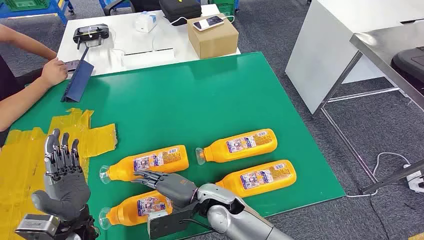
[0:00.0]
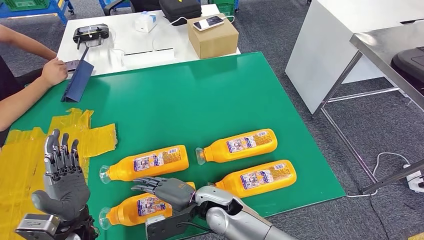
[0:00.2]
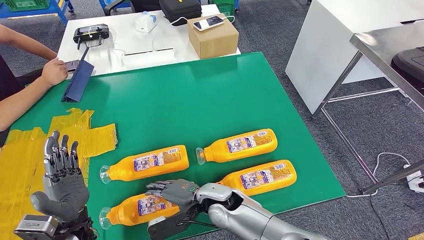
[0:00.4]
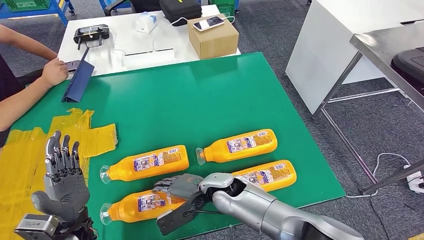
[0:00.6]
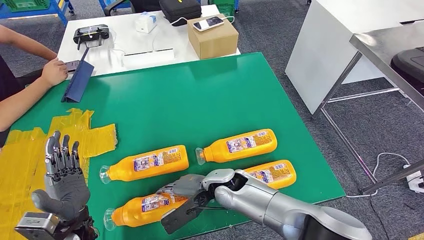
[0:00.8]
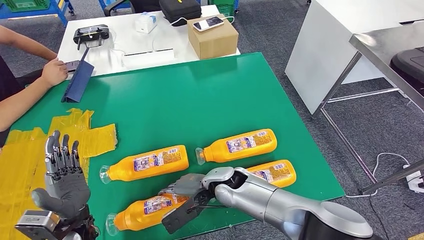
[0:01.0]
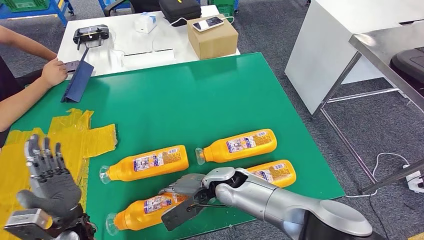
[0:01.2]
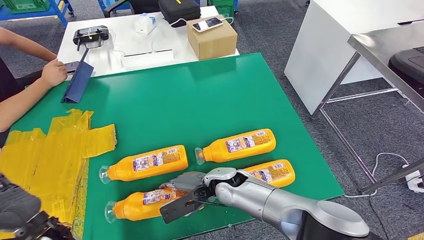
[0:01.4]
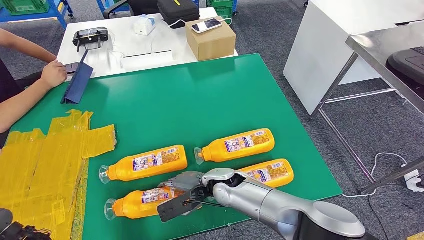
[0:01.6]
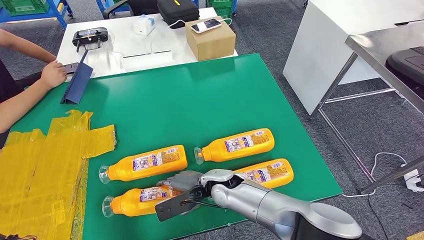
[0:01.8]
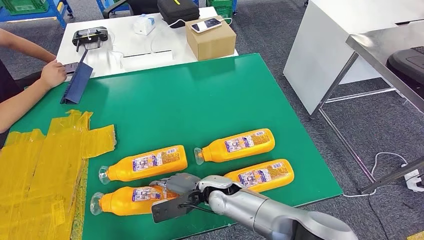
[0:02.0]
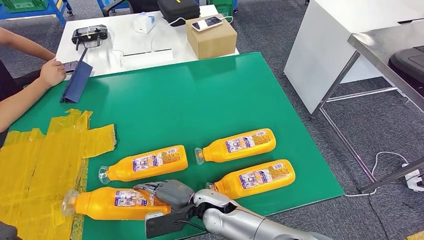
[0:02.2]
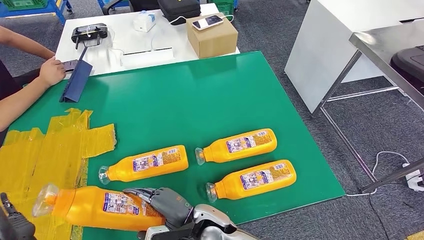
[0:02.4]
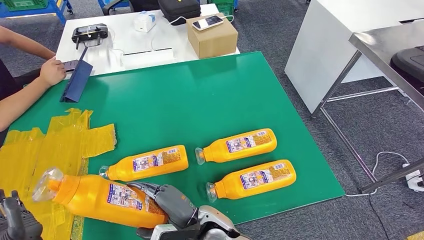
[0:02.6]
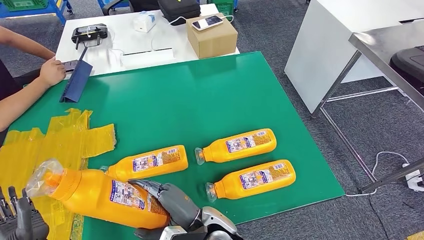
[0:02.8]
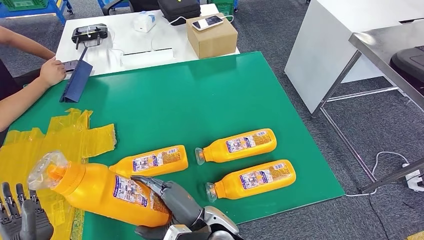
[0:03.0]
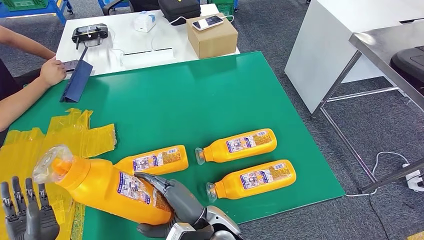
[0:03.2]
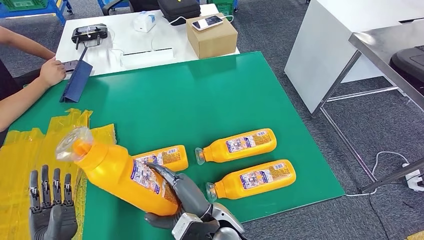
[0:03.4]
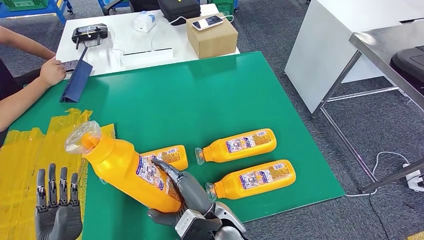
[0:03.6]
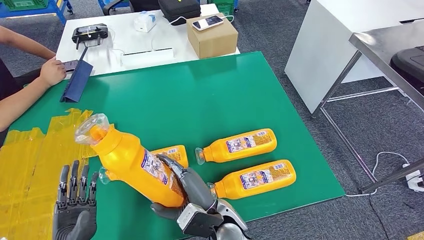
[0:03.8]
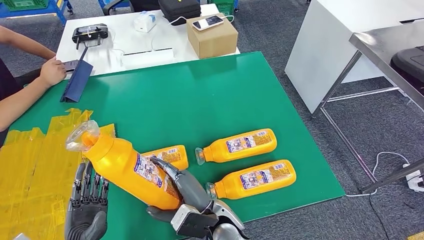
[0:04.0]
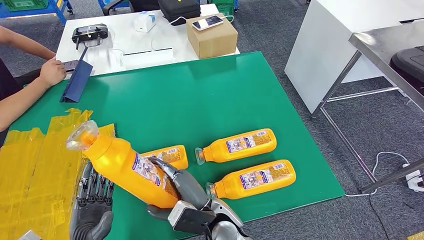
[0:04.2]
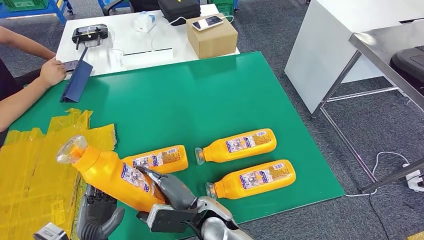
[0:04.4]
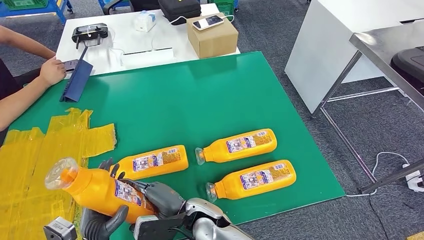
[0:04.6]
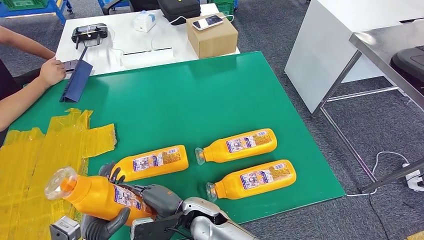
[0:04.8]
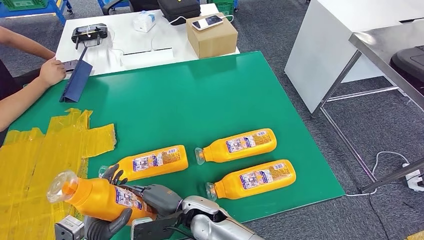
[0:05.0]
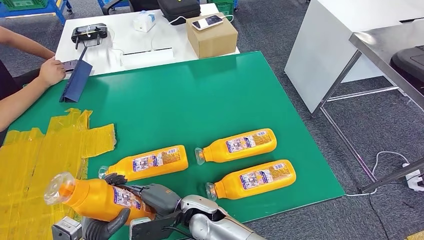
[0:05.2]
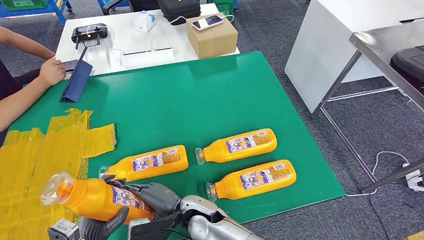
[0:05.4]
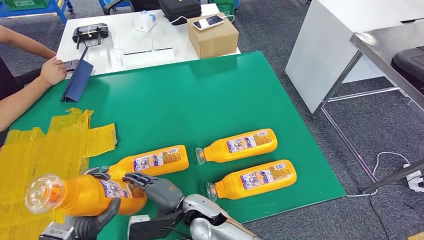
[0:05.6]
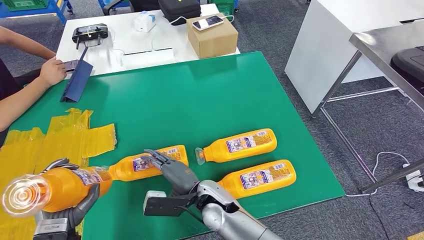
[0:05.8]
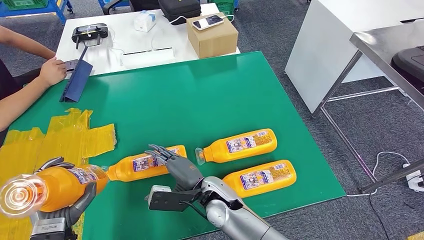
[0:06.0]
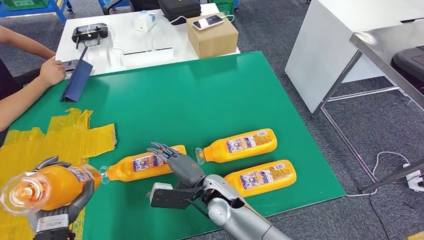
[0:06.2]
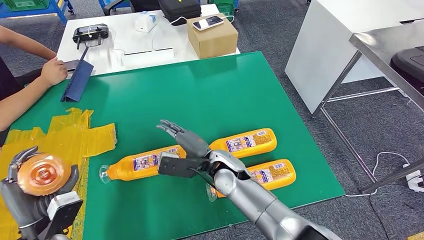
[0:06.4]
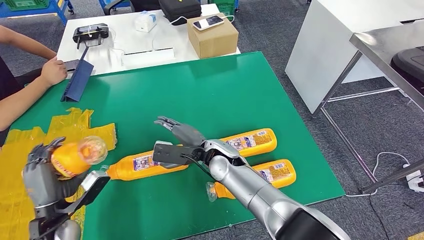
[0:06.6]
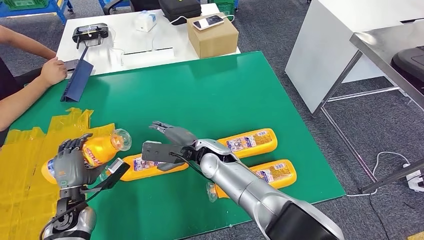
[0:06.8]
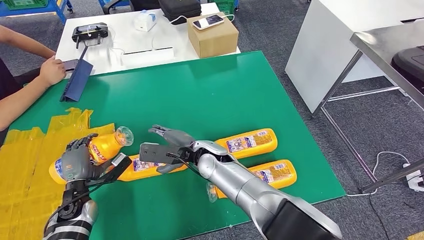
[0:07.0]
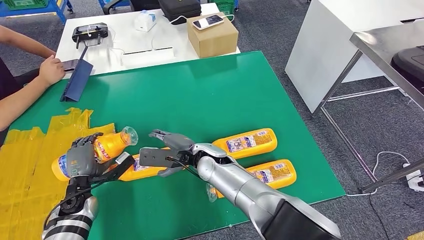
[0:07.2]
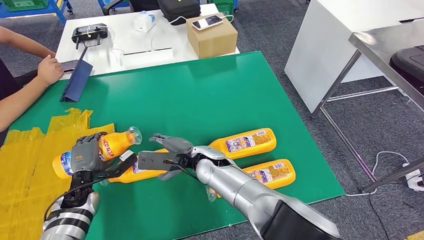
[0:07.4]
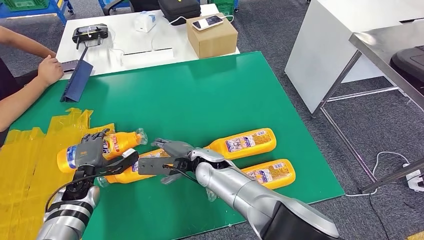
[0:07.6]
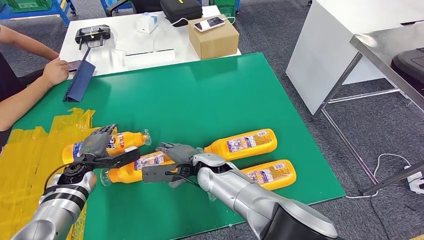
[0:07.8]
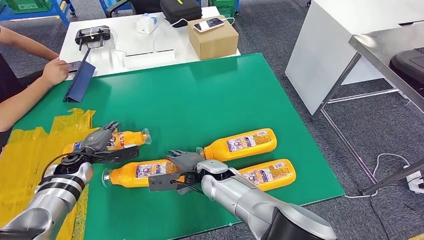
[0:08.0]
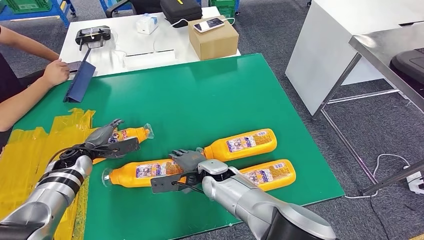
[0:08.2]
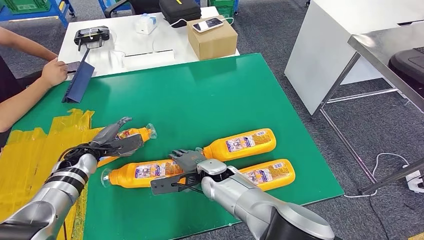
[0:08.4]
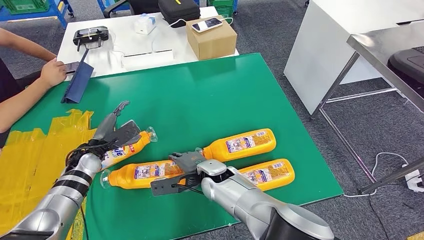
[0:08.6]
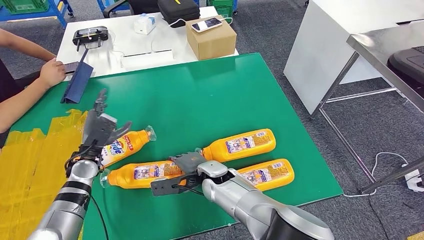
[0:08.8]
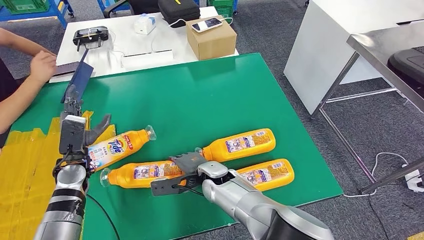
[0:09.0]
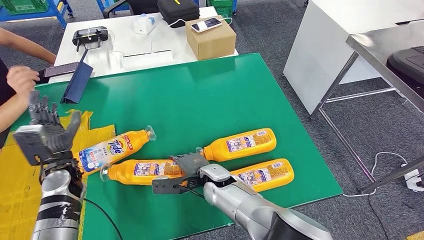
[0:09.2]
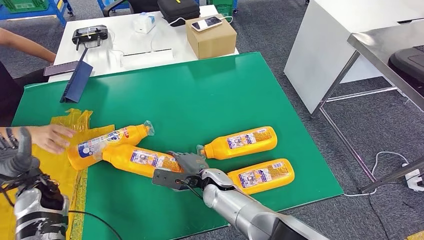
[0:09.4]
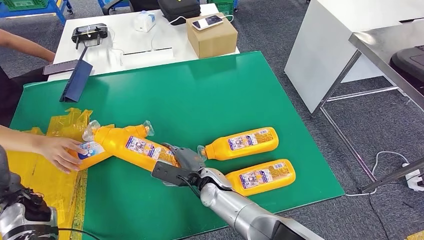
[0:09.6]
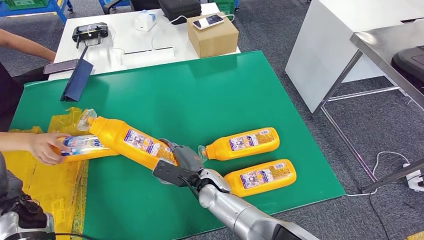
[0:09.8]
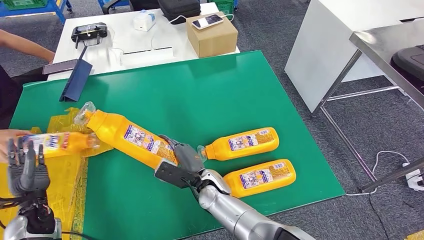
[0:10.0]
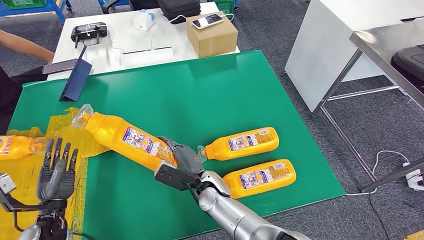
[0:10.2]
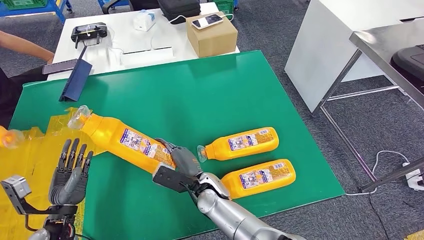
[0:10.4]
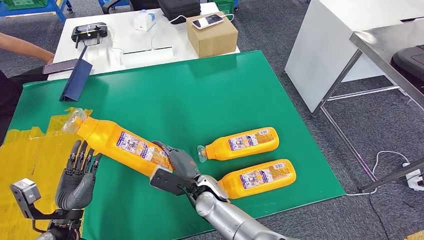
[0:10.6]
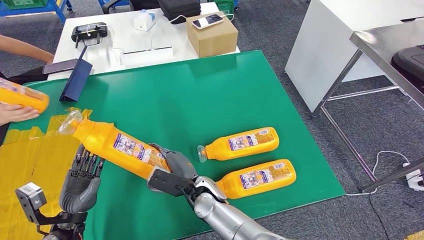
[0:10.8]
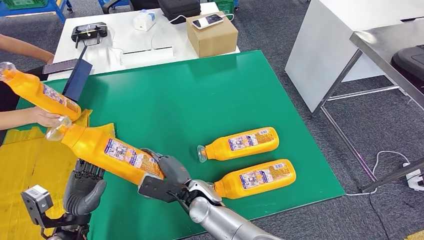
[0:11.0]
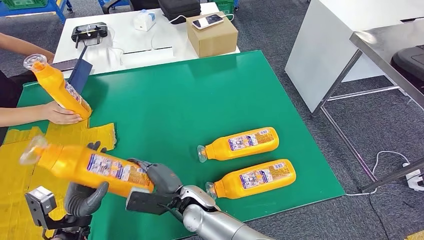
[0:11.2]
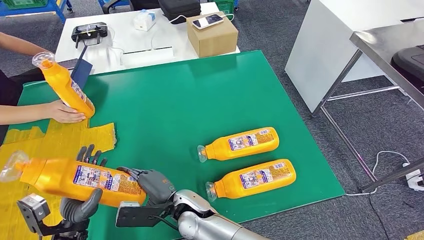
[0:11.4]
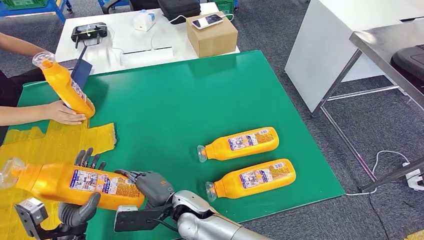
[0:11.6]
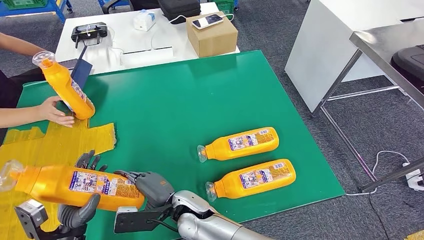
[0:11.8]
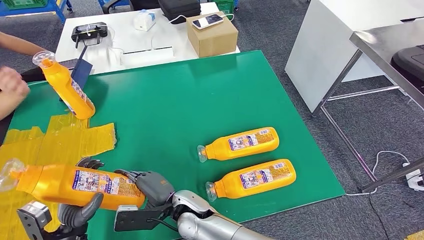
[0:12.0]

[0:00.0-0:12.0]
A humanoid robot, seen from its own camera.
Step, 0:00.0 to 0:02.4: Take the fast-moving consumer goods bottle from the table.
Step, 0:02.6 to 0:08.8: Flip the fast-moving consumer goods bottle to the front side.
Step, 0:09.0 to 0:11.8: Pick up the fast-moving consumer goods bottle from the table.
0:03.0 to 0:04.4: The left hand travels to the right by approximately 10 cm.
0:04.4 to 0:06.0: The left hand heads to the left, covering roughly 5 cm.
0:06.0 to 0:07.6: The left hand heads forward, covering roughly 15 cm. Meanwhile the right hand moves forward, some 10 cm.
0:10.4 to 0:12.0: The right hand shifts about 10 cm backward and to the left, while the left hand changes place by approximately 5 cm.

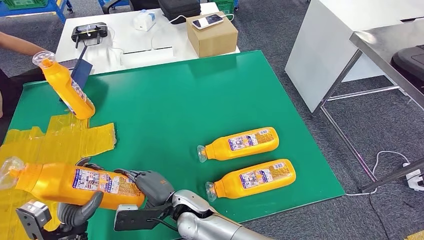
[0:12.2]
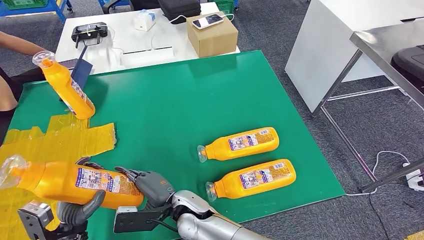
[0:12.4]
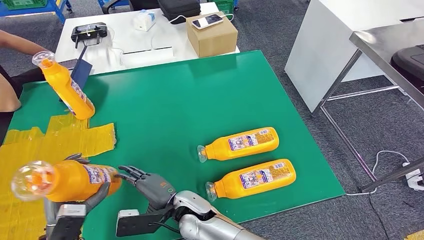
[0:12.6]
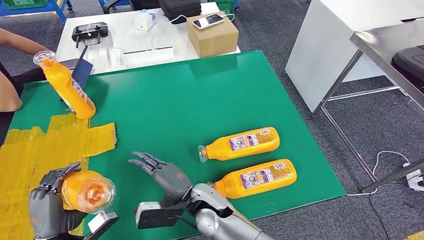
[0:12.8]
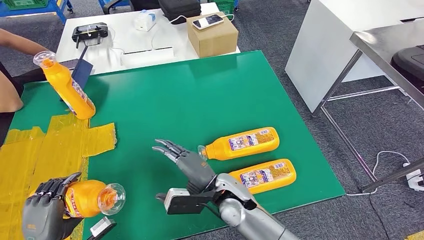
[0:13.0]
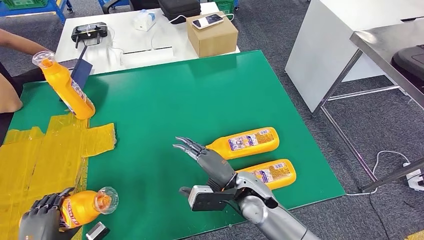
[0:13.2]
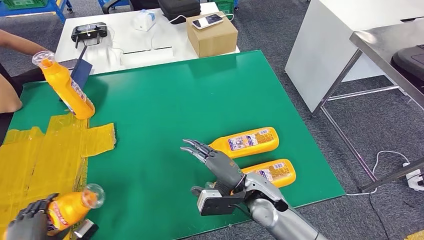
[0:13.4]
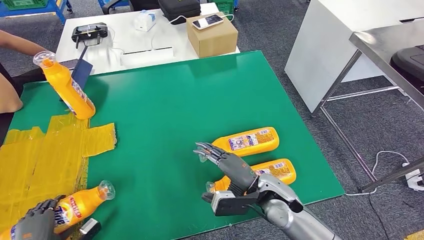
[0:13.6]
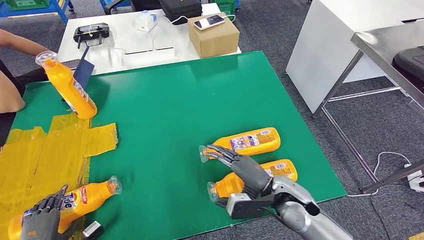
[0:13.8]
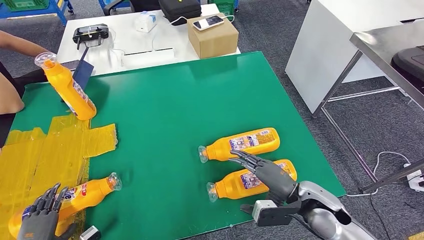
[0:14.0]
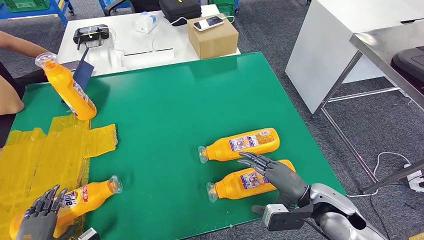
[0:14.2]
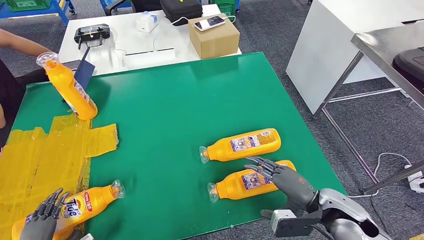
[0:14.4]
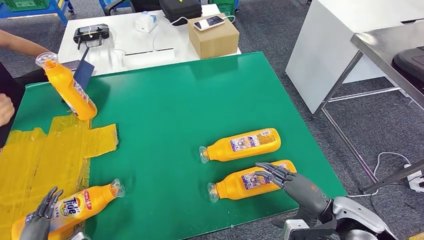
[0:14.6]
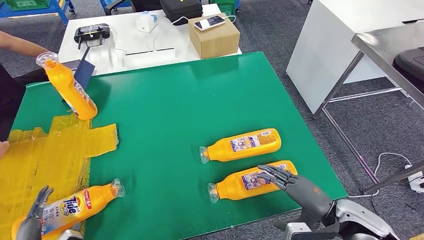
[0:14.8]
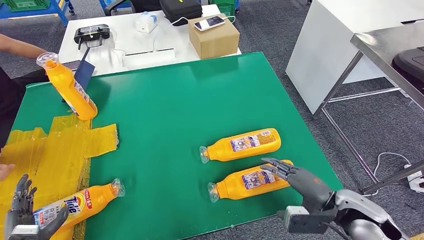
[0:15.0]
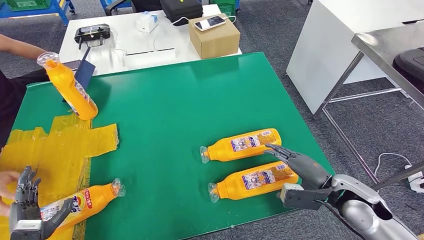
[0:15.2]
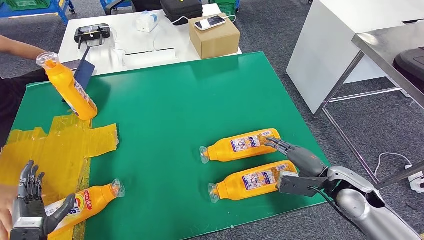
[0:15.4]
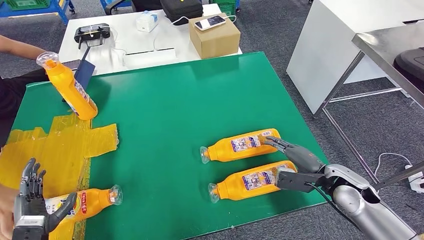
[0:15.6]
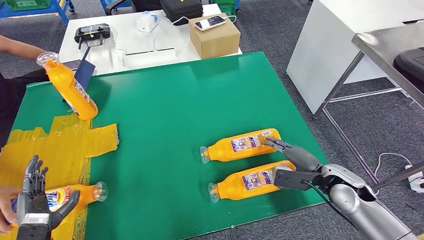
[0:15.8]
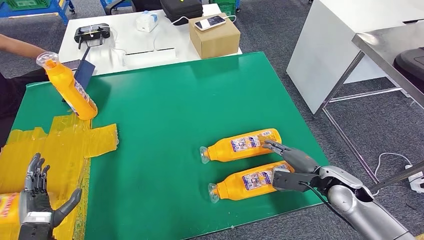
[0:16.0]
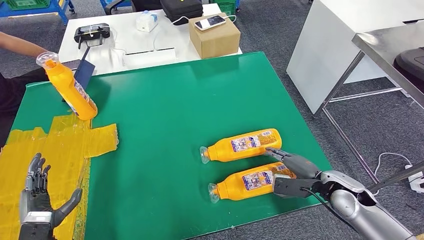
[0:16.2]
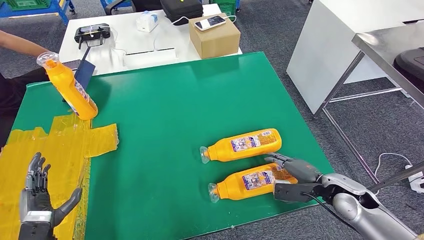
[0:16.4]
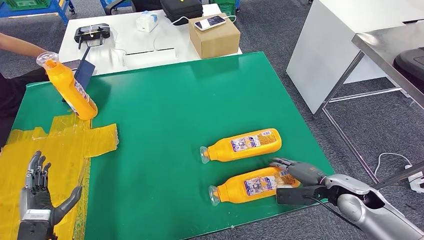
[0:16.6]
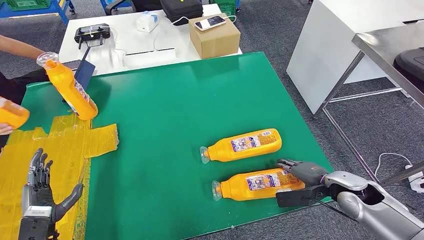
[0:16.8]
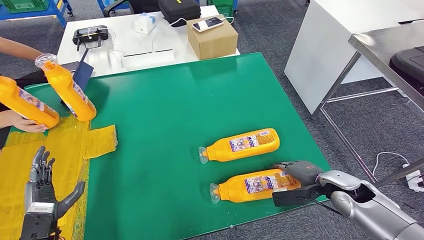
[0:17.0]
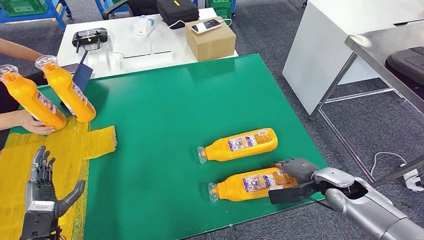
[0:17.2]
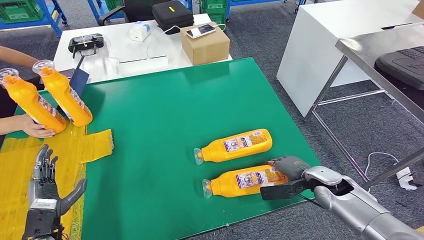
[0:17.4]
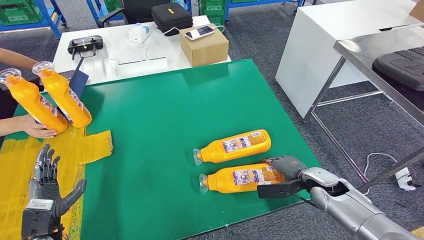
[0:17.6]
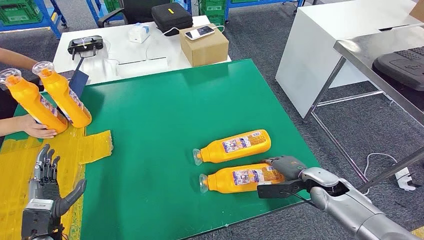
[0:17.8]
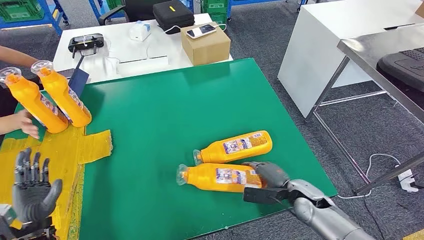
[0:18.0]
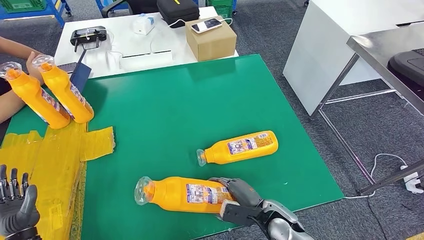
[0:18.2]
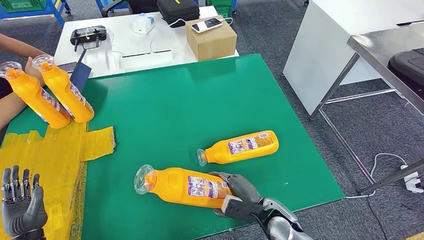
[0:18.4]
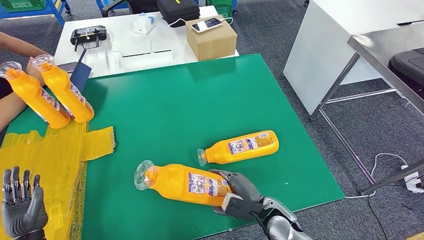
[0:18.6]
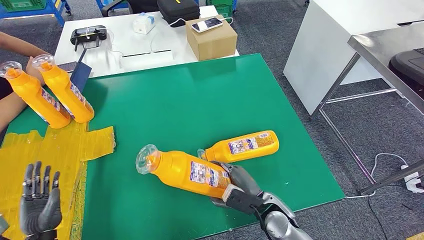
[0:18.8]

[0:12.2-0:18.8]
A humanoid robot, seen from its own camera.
Step, 0:12.2 to 0:15.4: Flip the fast-moving consumer goods bottle to the front side.
